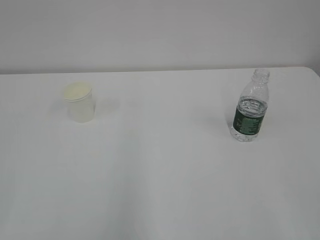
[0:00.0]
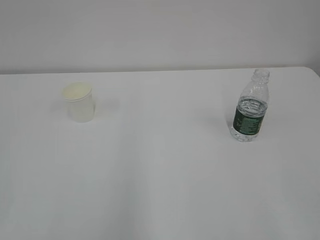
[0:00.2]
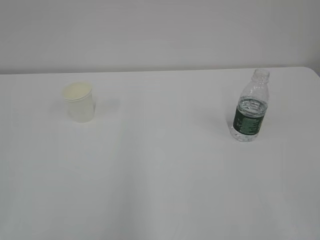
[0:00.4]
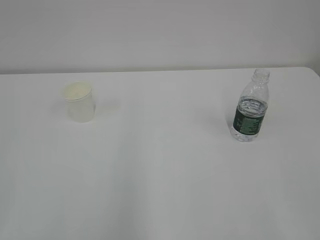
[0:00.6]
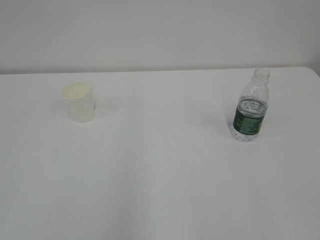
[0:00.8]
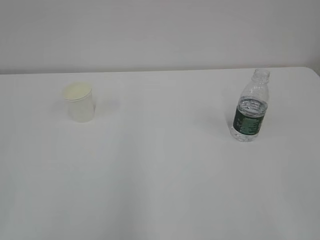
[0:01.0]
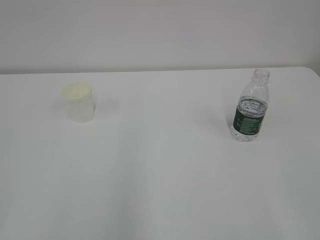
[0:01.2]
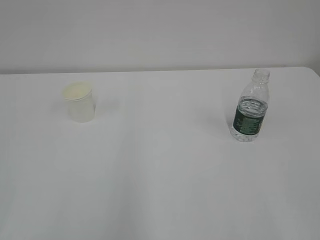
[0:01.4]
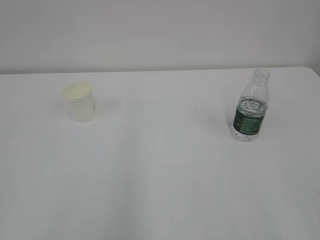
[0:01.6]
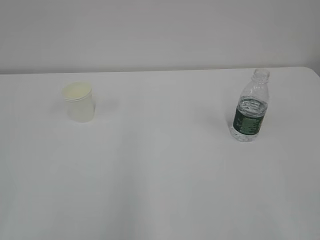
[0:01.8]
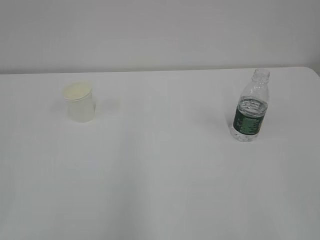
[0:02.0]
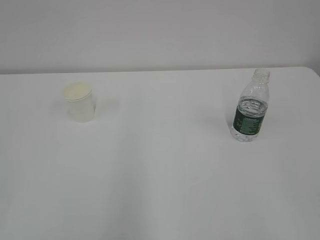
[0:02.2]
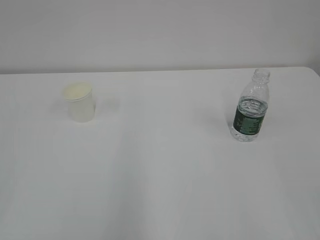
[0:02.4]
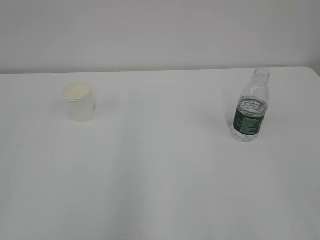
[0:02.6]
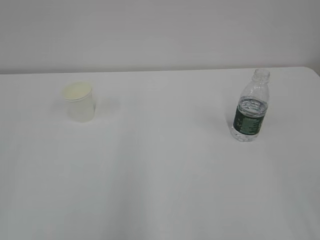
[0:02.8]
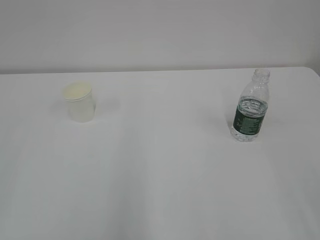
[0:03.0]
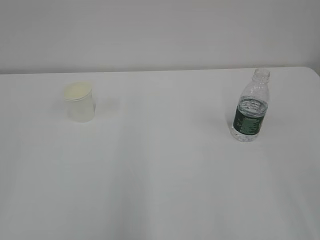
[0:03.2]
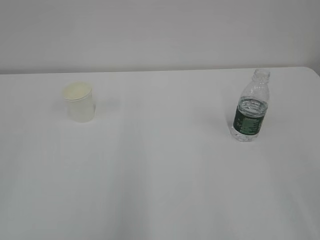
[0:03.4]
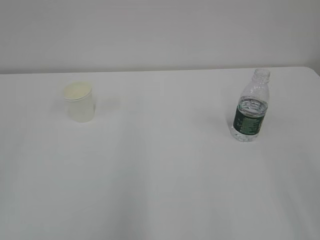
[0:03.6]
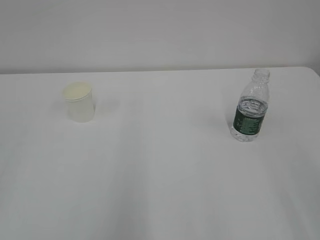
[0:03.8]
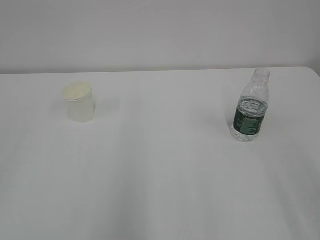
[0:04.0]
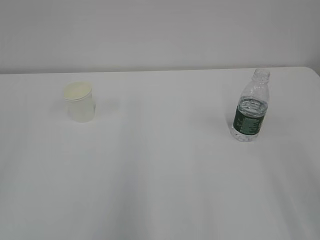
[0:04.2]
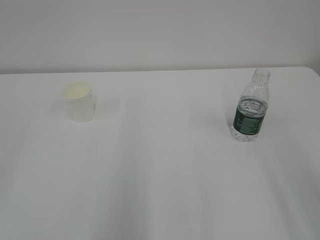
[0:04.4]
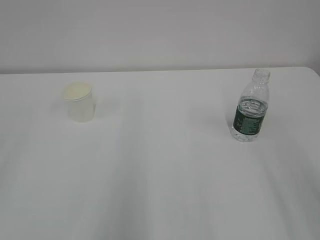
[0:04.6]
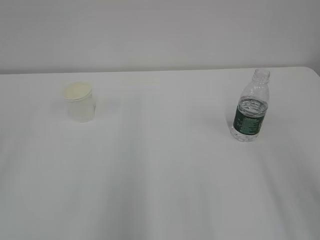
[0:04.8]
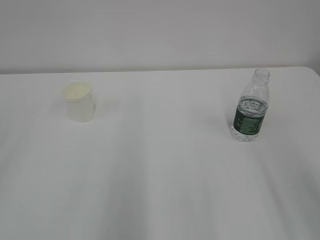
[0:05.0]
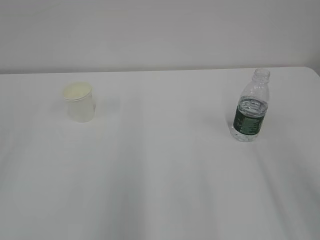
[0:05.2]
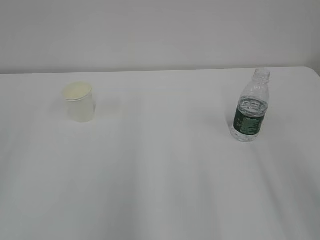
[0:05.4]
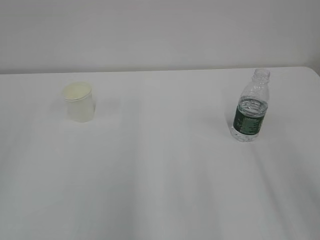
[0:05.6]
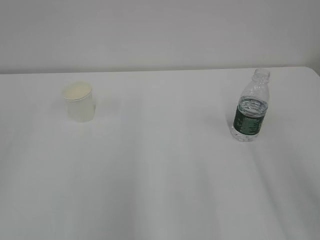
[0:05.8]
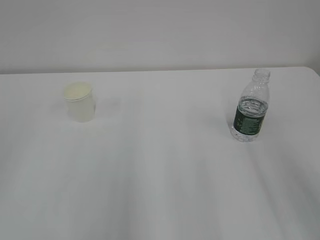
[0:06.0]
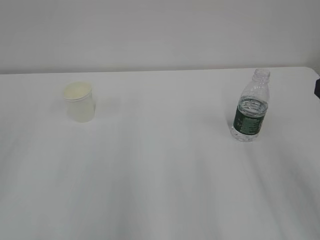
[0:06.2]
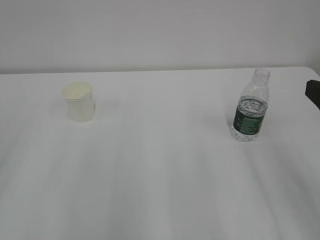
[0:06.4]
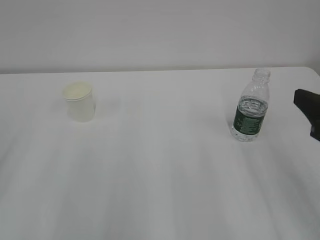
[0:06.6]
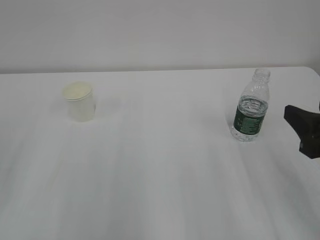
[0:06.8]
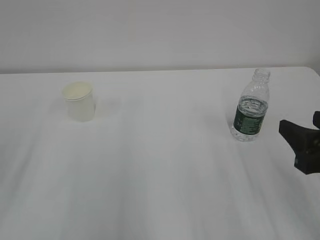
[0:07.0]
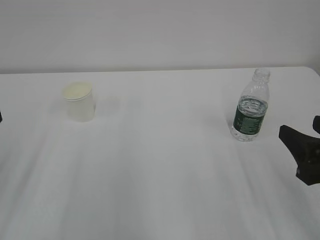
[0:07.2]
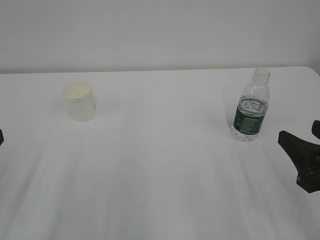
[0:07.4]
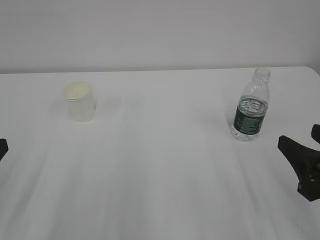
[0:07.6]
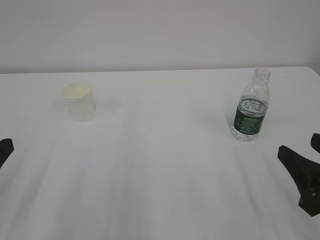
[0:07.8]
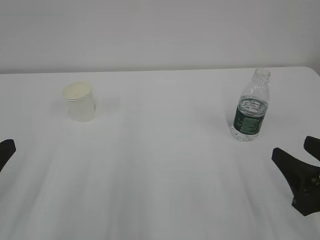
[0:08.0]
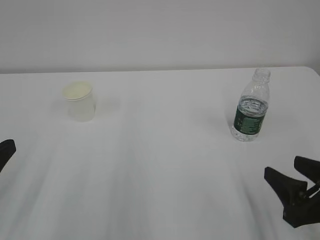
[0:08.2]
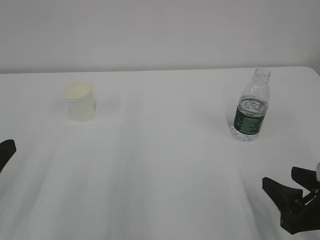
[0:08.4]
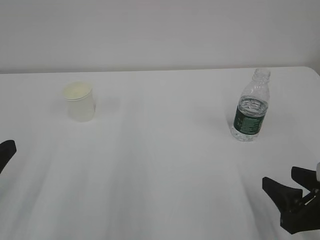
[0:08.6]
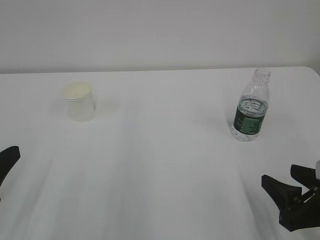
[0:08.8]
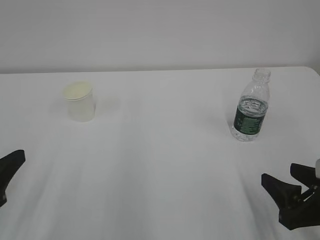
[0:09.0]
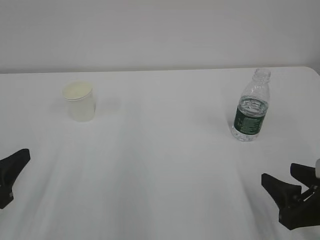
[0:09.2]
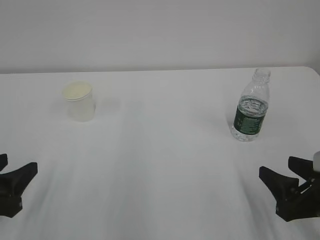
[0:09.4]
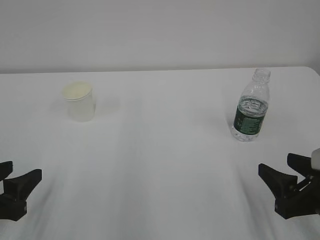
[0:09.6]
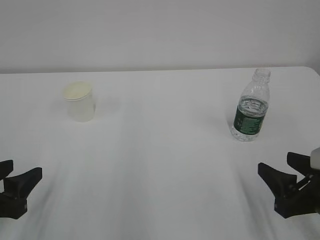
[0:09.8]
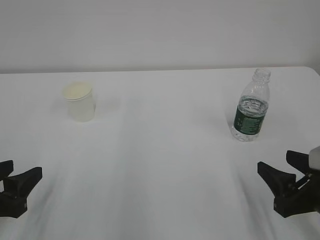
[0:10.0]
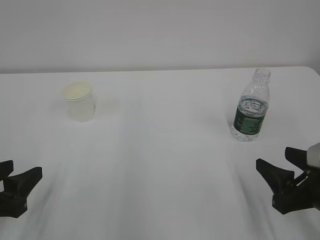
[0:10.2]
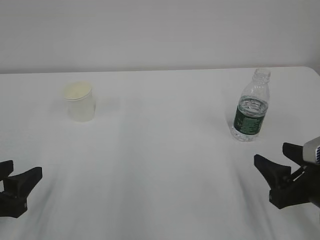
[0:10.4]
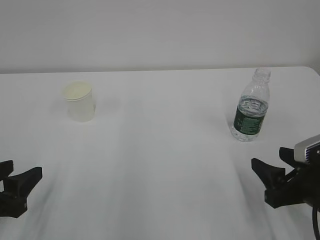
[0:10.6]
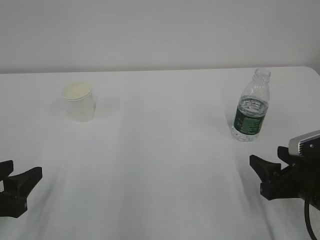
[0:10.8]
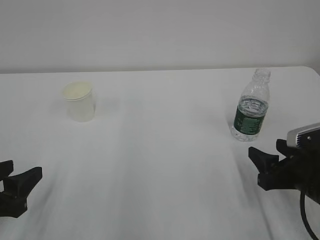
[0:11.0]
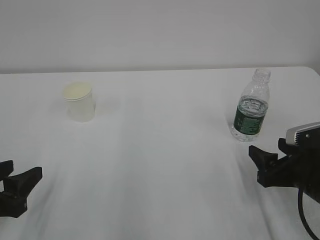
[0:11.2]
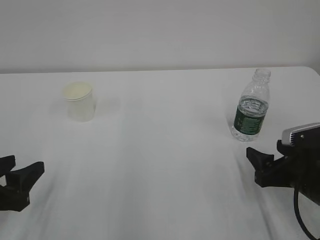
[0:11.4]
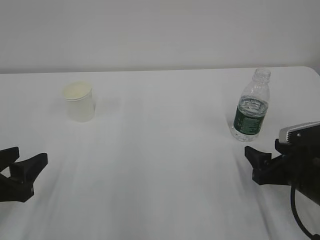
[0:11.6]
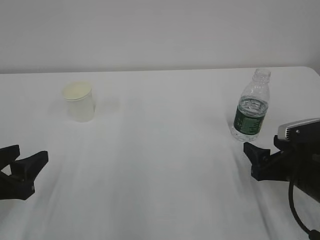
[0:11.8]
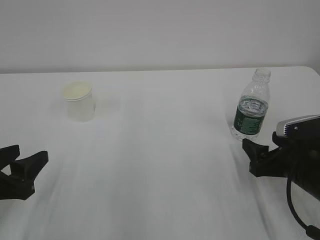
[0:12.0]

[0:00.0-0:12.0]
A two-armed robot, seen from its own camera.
0:06.0 to 0:07.6: The right gripper heads downward, covering some 10 cm.
0:07.6 to 0:09.0: The right gripper heads downward, covering roughly 5 cm.
0:09.0 to 0:10.4: The grippers stay close to where they were, moving slightly.
0:10.4 to 0:12.0: The right gripper goes about 5 cm forward, and opens up.

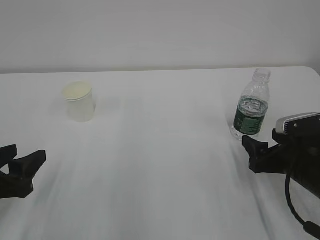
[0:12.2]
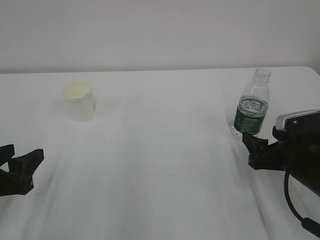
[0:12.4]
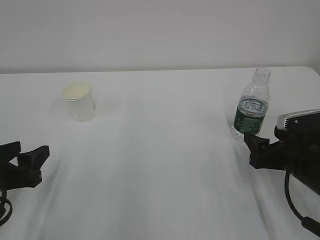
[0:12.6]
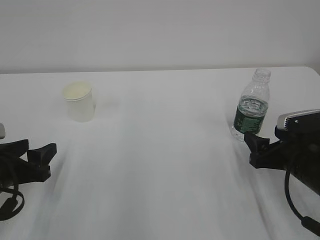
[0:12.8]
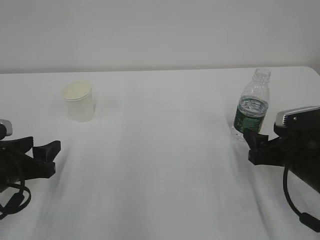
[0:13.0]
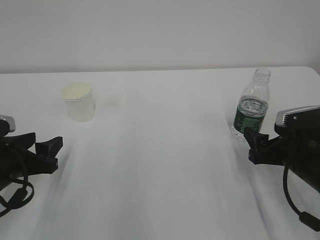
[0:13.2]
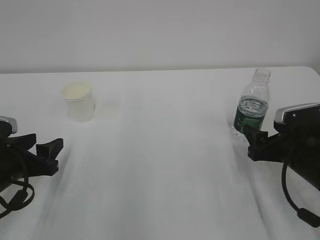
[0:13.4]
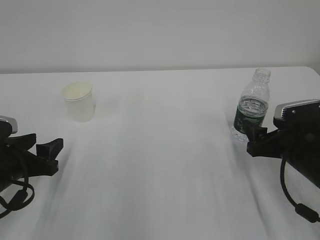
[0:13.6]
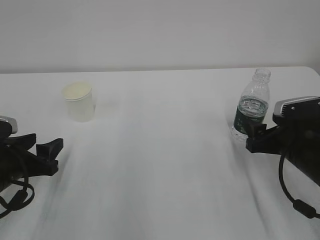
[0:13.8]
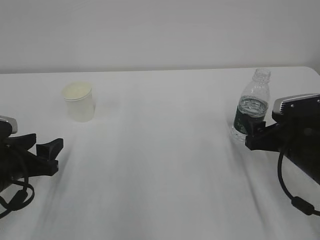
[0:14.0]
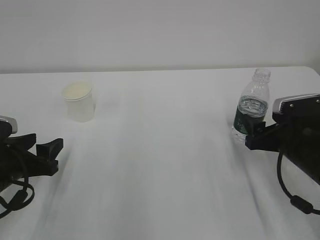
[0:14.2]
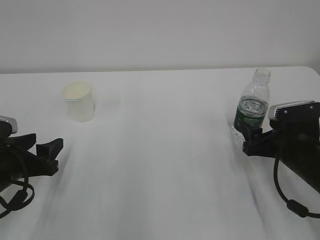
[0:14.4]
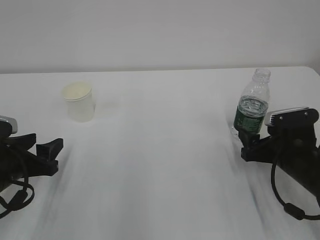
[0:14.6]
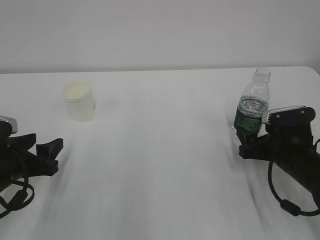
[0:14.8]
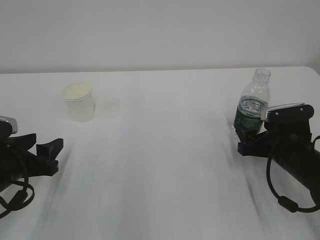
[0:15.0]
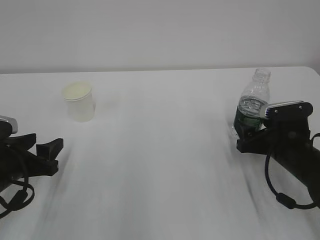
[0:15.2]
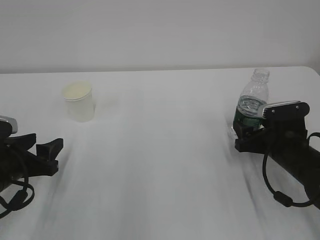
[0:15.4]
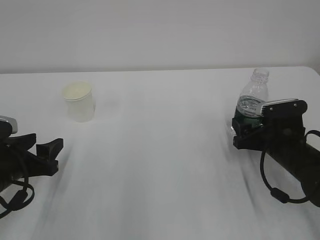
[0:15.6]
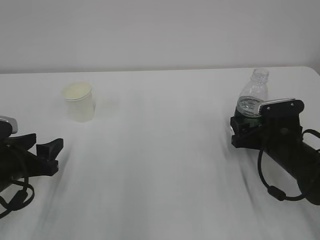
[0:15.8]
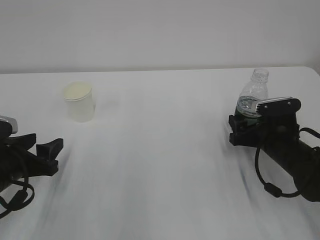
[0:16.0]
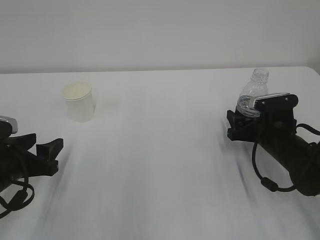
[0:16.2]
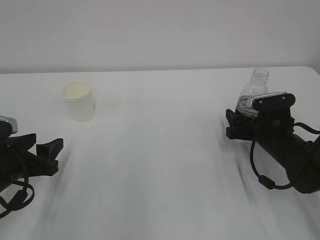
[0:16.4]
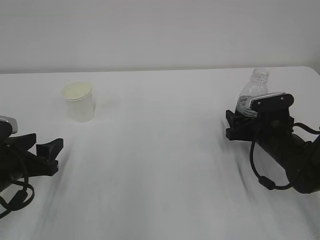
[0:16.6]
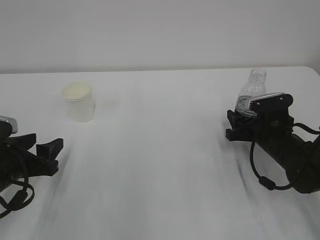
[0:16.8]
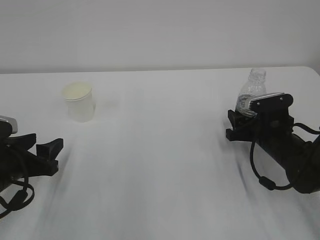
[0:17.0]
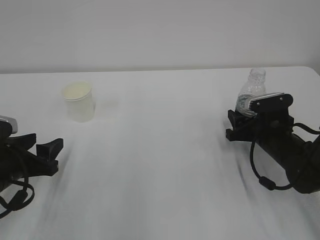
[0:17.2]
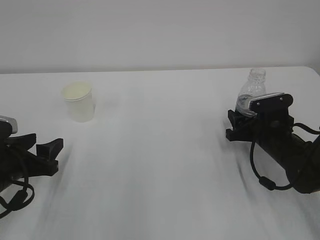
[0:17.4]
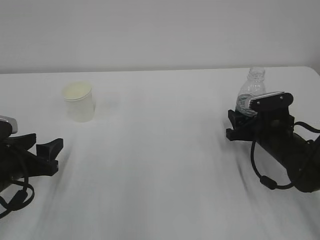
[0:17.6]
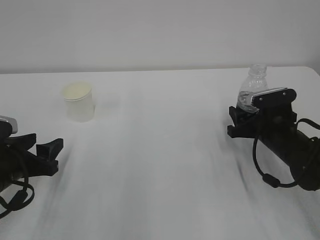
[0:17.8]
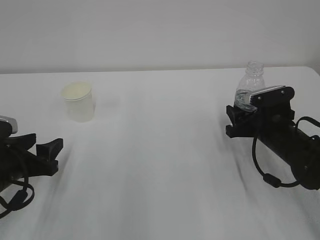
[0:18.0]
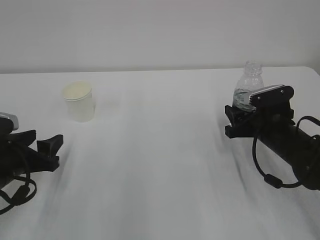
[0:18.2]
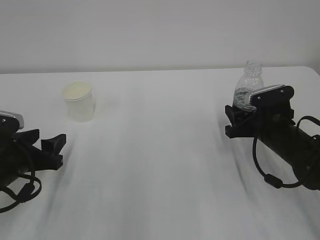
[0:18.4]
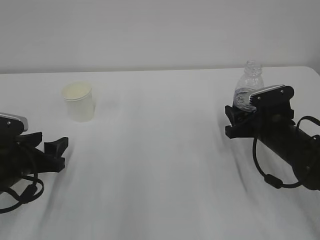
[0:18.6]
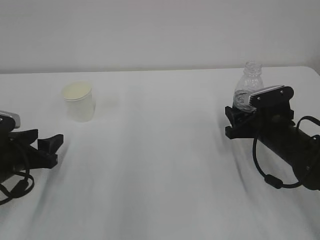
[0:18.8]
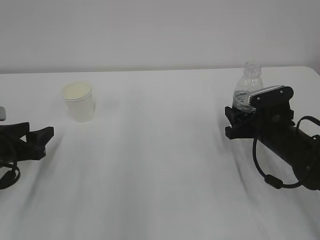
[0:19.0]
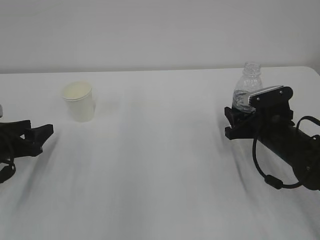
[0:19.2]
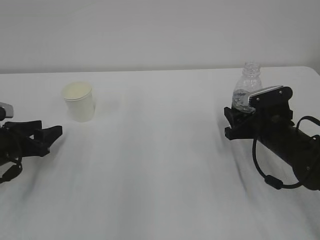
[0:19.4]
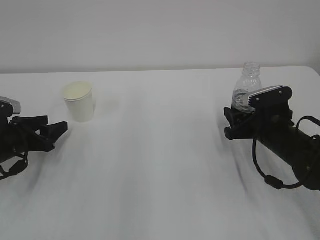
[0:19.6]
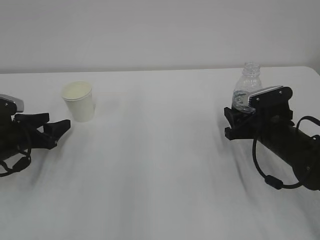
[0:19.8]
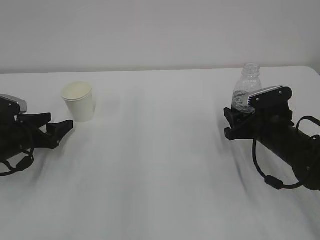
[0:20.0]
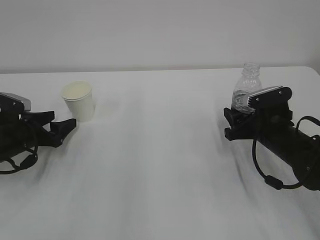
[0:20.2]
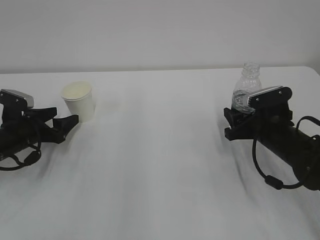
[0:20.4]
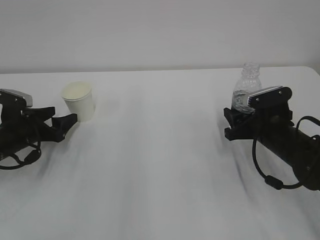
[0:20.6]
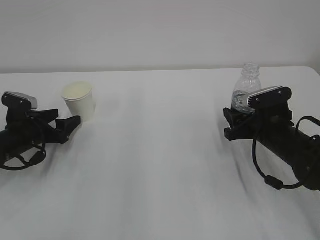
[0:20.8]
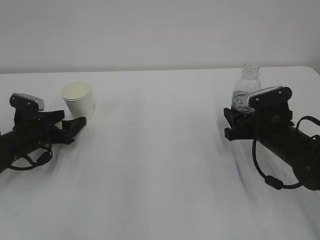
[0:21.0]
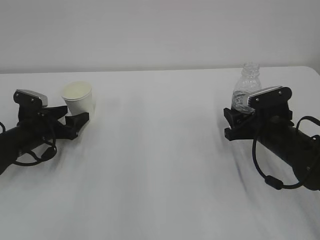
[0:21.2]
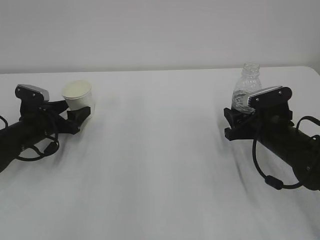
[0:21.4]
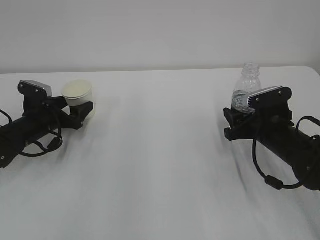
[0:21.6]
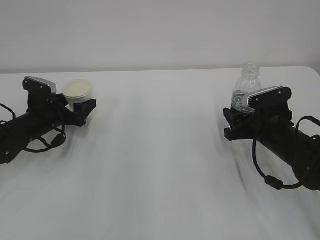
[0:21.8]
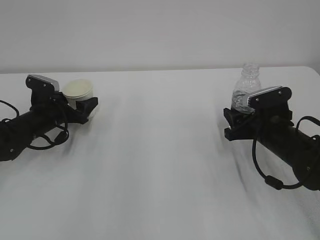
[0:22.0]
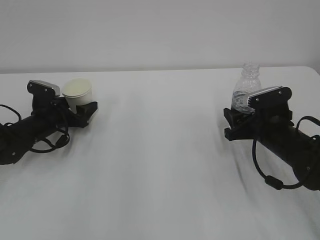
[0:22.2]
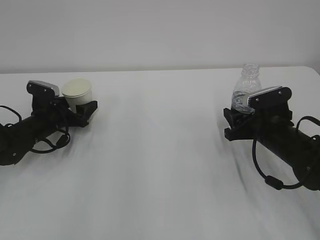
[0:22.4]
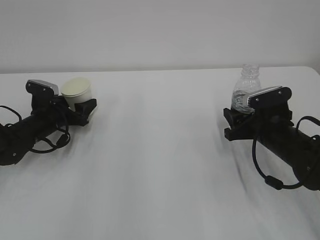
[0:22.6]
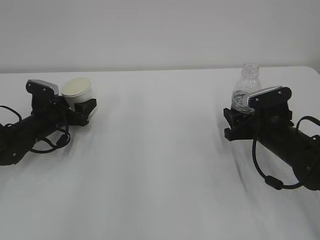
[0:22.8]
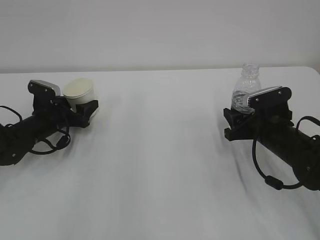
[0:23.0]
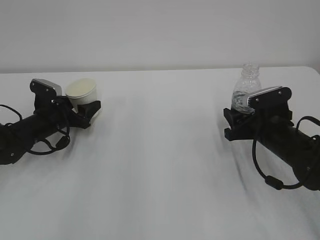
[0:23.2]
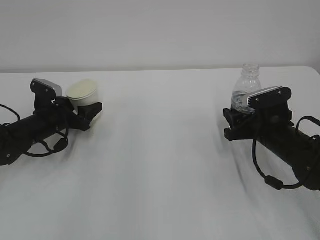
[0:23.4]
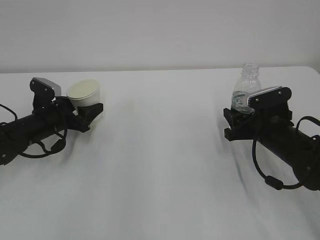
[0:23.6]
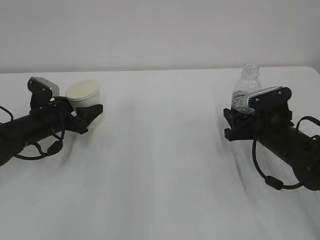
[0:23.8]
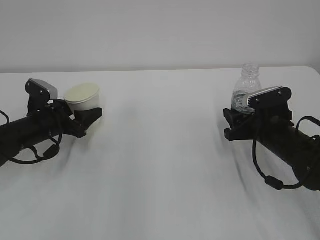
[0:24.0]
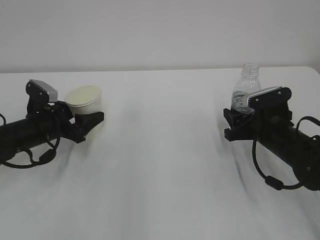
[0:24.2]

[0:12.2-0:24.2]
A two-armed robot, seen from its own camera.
0:12.2 to 0:13.8: The left gripper is displaced forward by approximately 5 cm.
0:13.8 to 0:15.2: The grippers make only small movements.
0:15.2 to 0:16.6: There are only small adjustments of the grippers.
0:16.6 to 0:18.2: The right gripper closes.
0:18.2 to 0:19.8: The left gripper moves forward, some 10 cm.
0:19.8 to 0:21.2: The left gripper changes place by some 5 cm.
0:21.2 to 0:22.6: The left gripper closes up.
0:22.6 to 0:24.2: The left gripper heads backward, covering about 5 cm.
